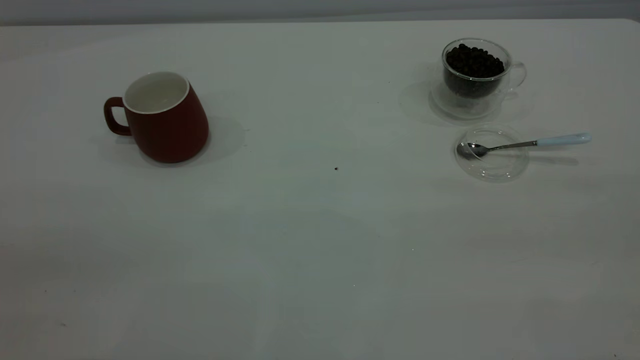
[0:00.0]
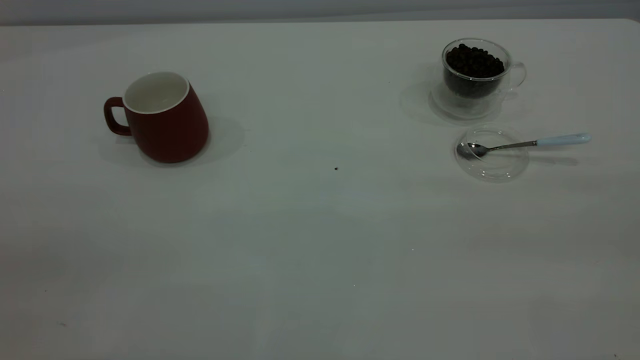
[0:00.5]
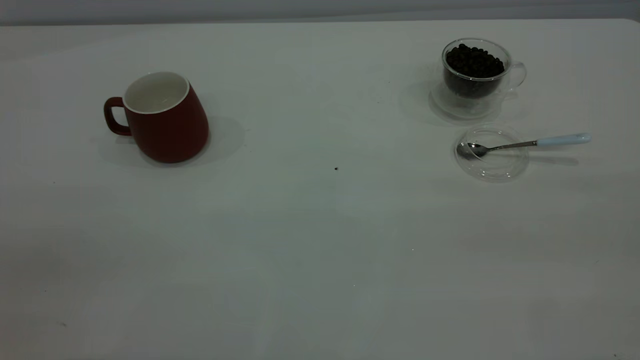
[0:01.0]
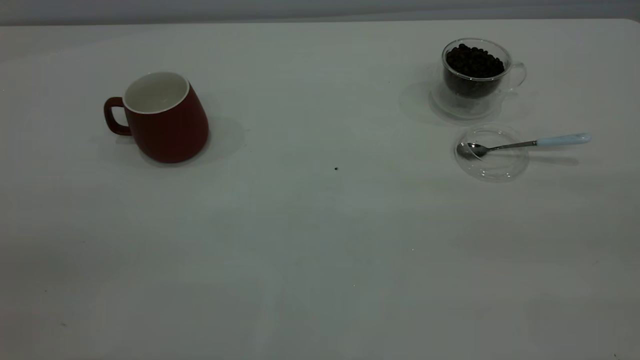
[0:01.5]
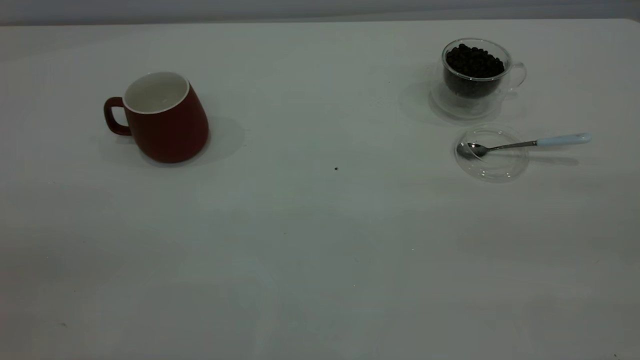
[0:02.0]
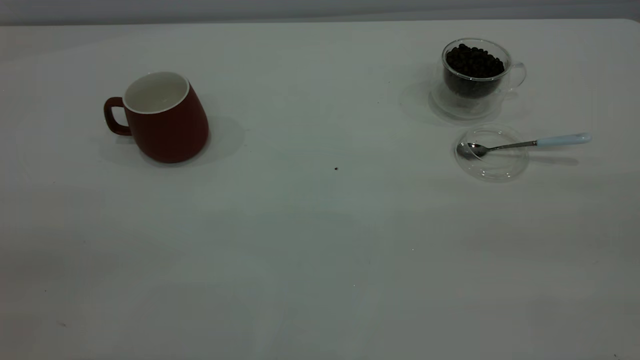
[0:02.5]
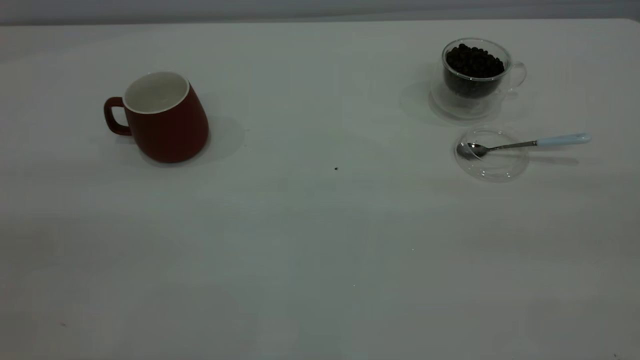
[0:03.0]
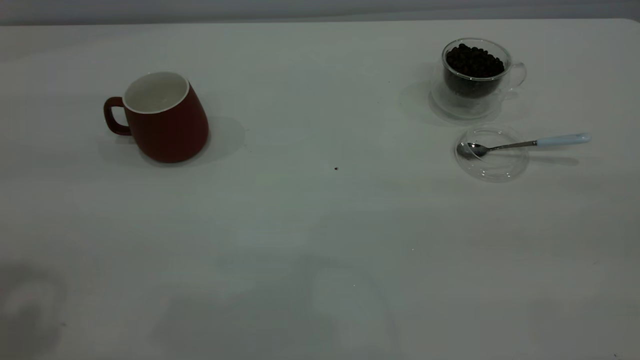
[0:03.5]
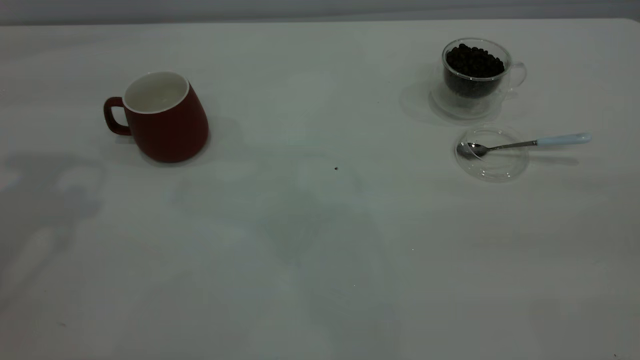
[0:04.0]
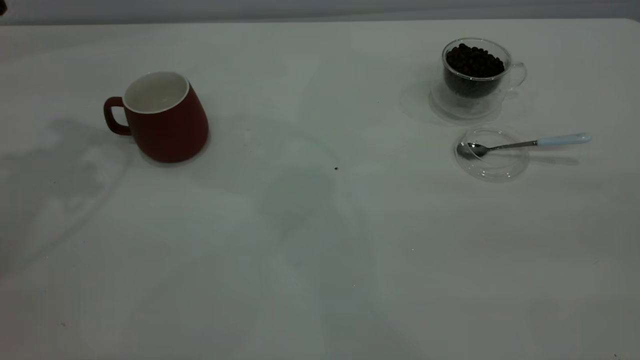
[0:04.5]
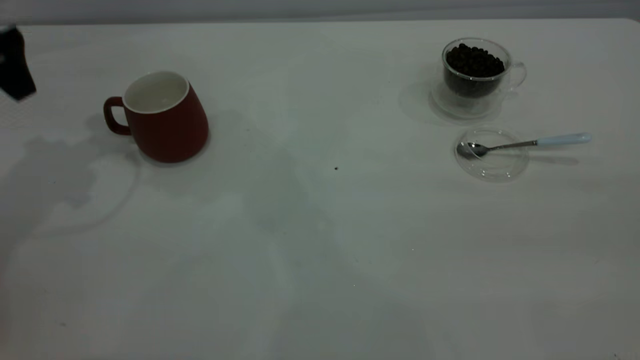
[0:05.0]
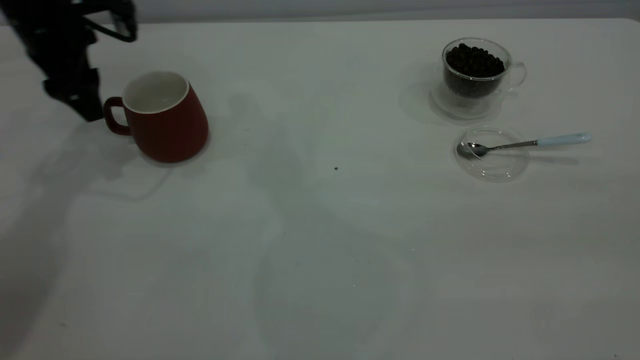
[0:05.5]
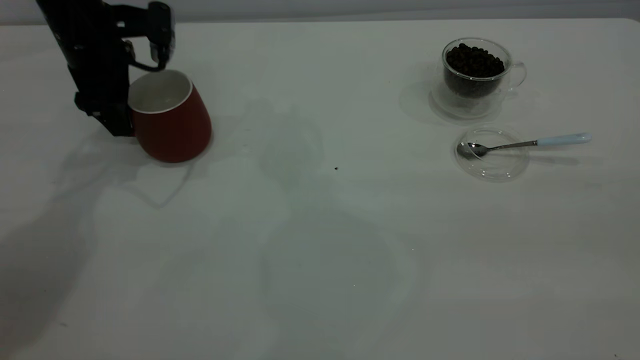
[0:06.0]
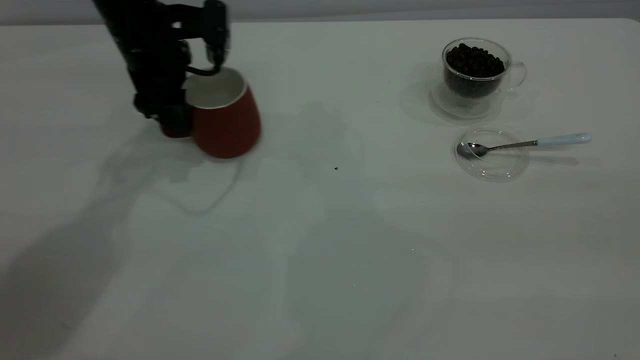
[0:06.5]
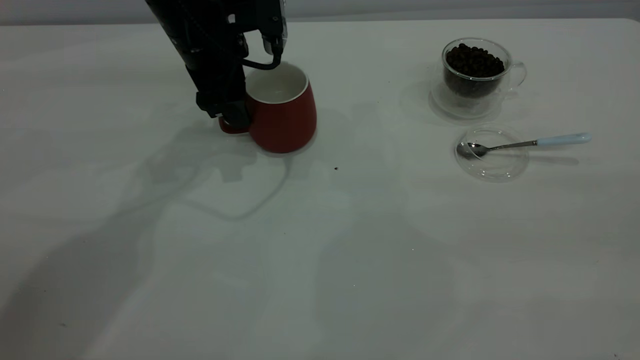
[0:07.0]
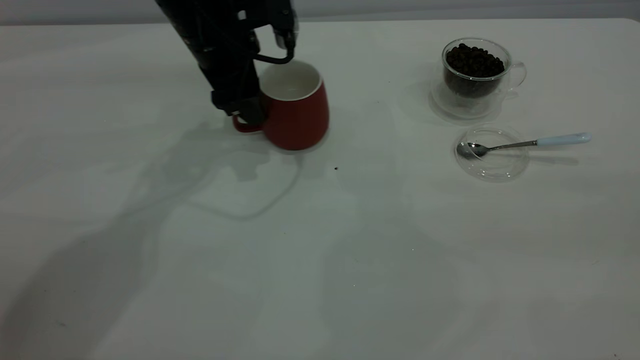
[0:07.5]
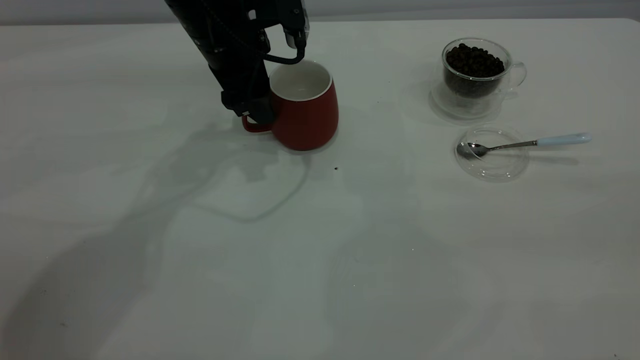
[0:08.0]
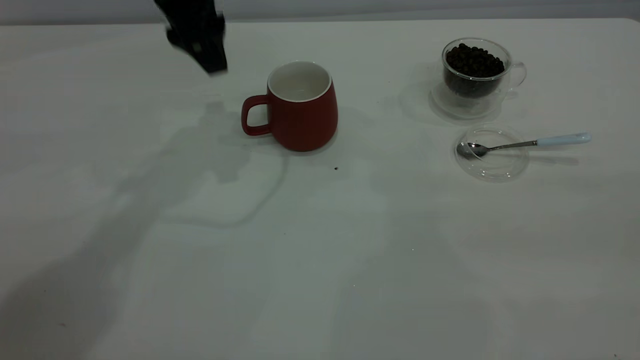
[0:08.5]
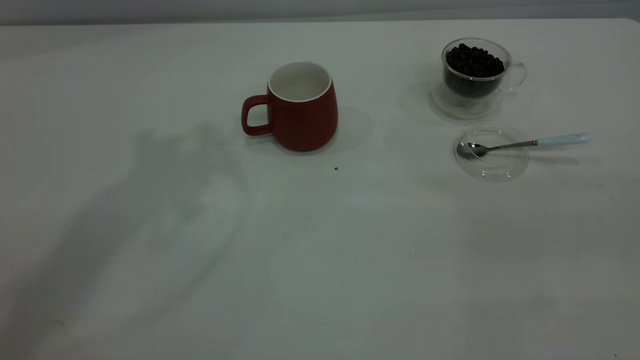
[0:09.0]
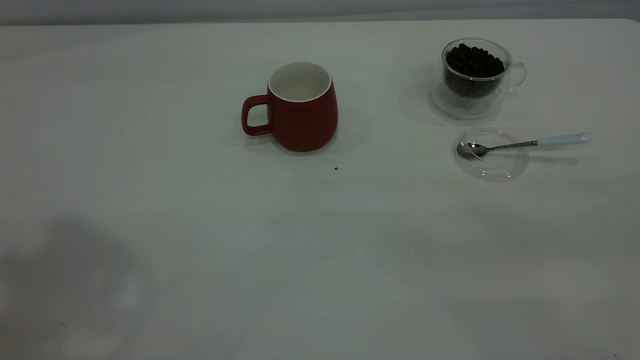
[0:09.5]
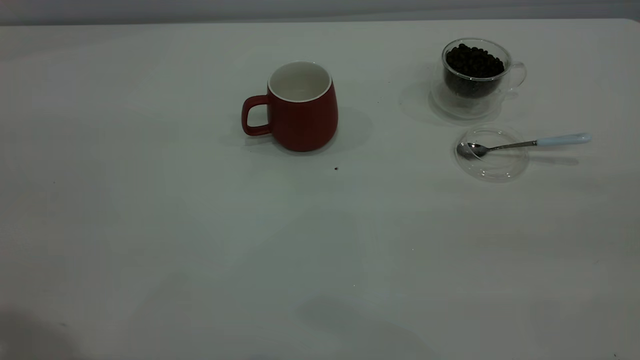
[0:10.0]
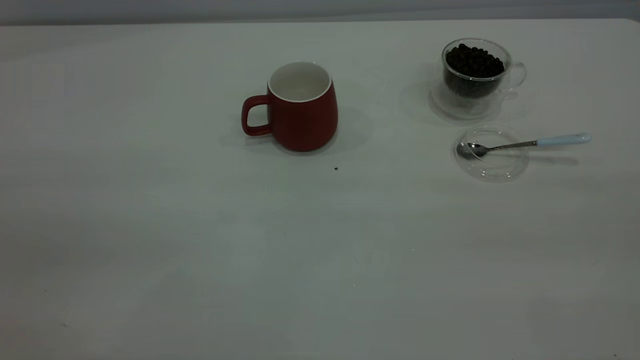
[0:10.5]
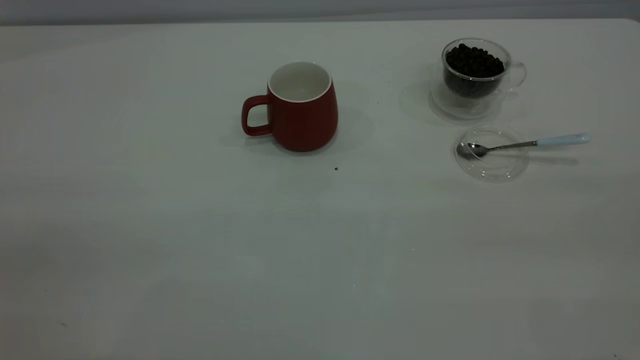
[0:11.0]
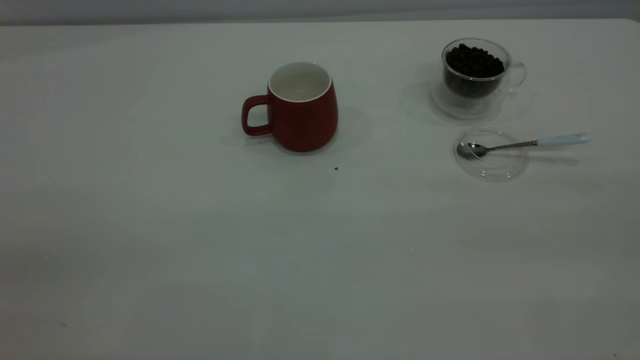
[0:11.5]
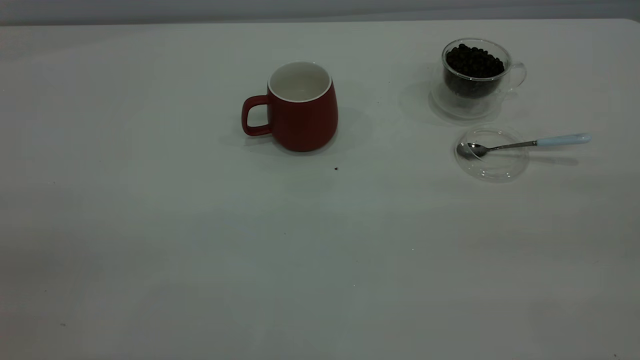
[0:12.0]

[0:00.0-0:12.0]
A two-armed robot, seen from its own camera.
Task of the whole recording: the left gripper place the red cup in the center of the table, the right gripper take the blue spoon from the cup lid and scoop out the coffee beans from the coffee cup and put them into the red cup, the right gripper put the spoon back into the cup lid.
Step, 0:00.0 to 0:08.0: Move the cup to the center of view.
0:00.0 to 0:02.0: The two grippers keep their place.
0:04.0 to 0:06.0: The left gripper is displaced downward and forward by about 25 cm.
0:06.0 to 0:08.0: The left gripper moves to the right, roughly 15 cm.
0:08.0 to 0:10.0: The left gripper goes approximately 40 cm backward, upward and to the left.

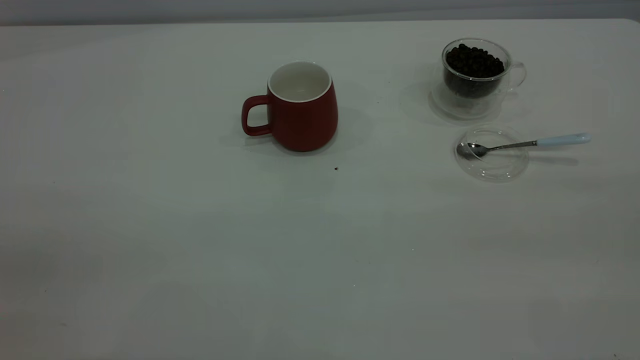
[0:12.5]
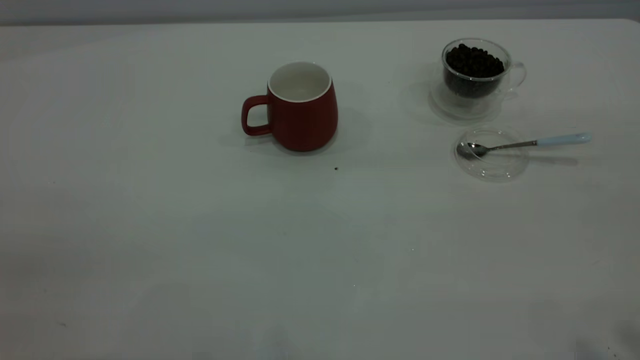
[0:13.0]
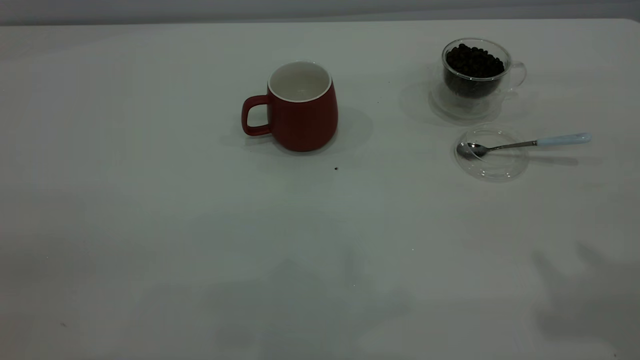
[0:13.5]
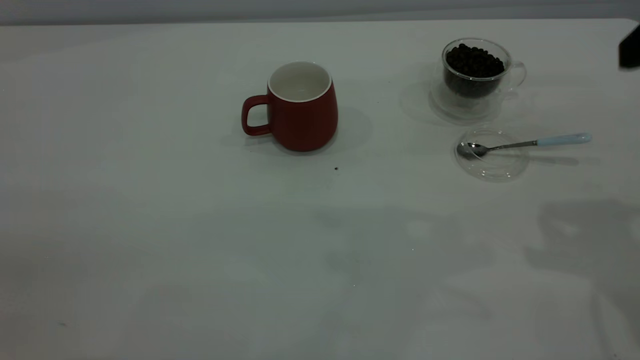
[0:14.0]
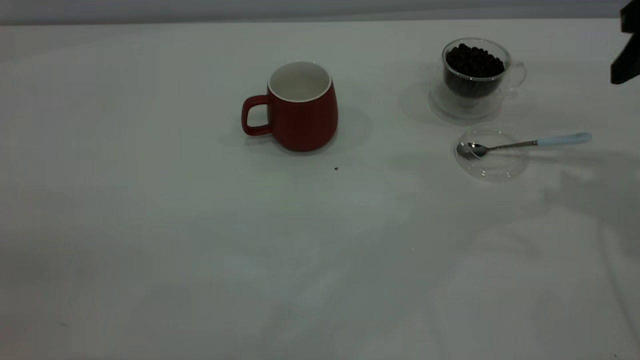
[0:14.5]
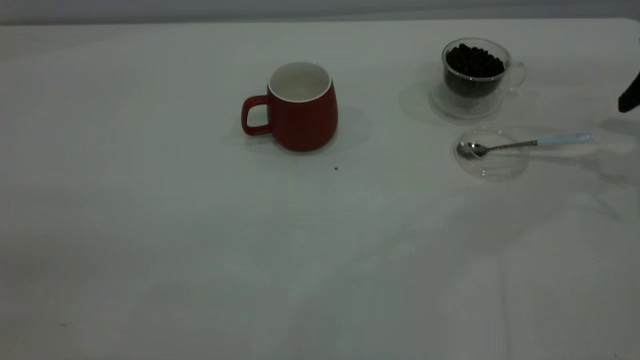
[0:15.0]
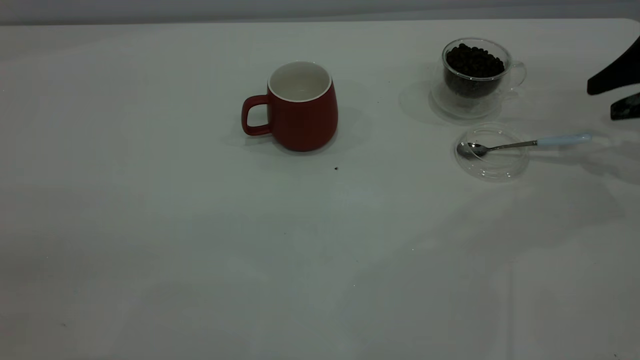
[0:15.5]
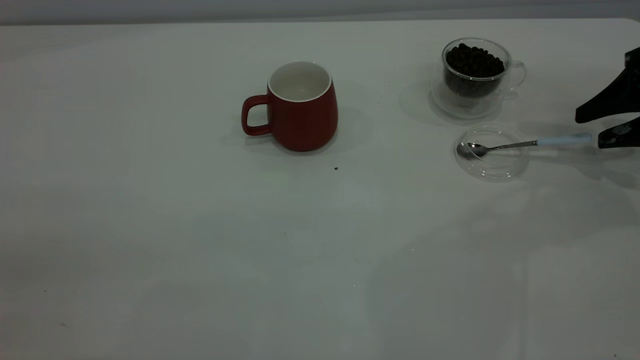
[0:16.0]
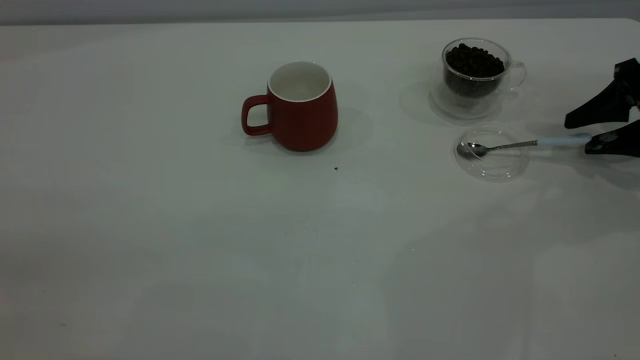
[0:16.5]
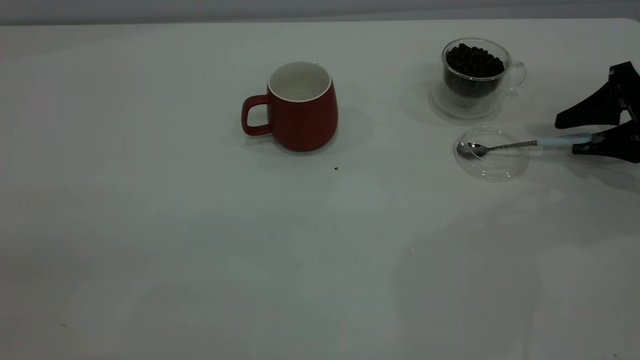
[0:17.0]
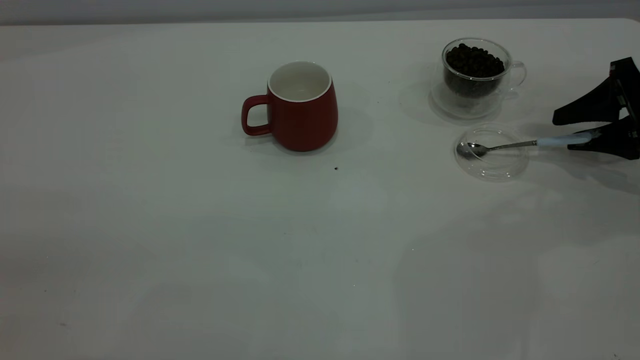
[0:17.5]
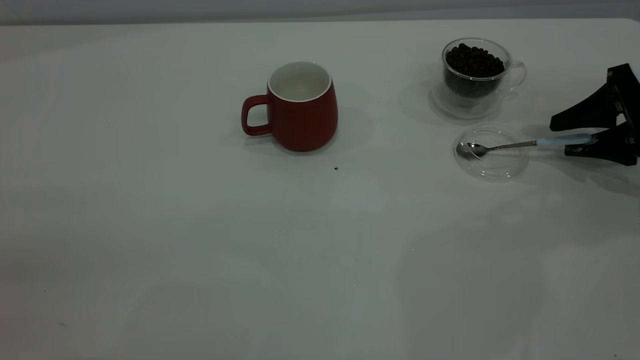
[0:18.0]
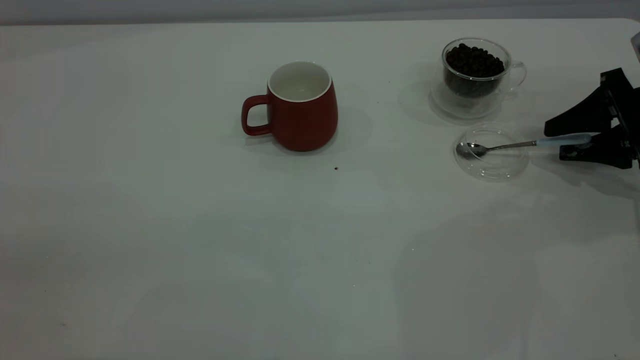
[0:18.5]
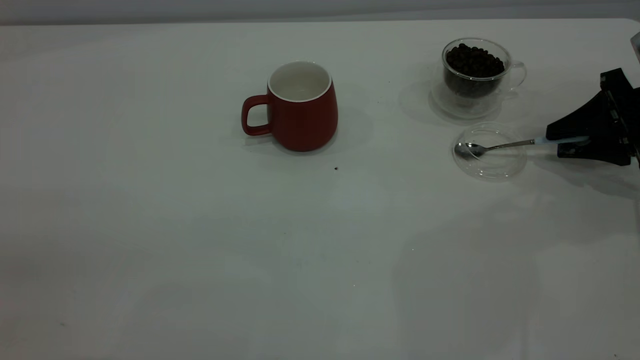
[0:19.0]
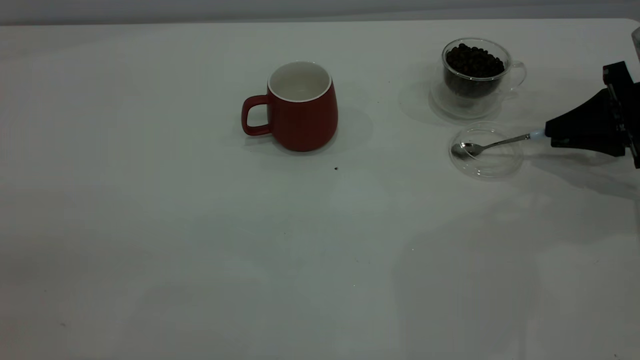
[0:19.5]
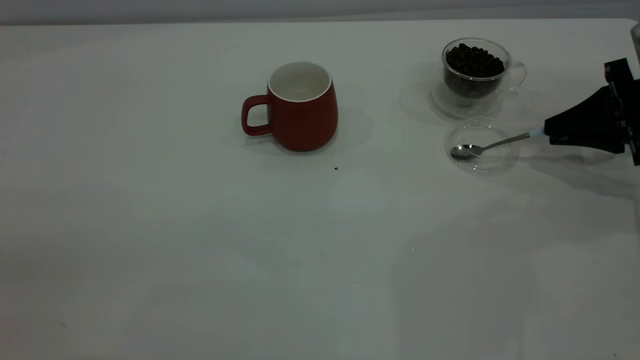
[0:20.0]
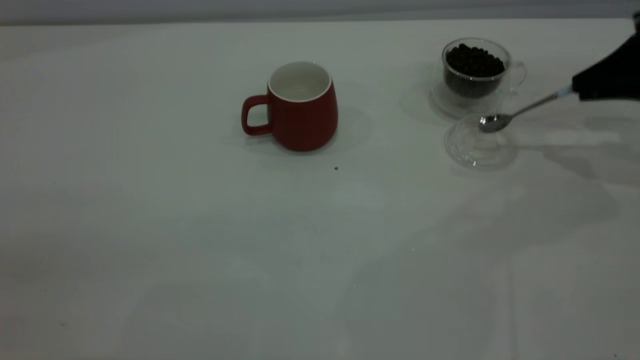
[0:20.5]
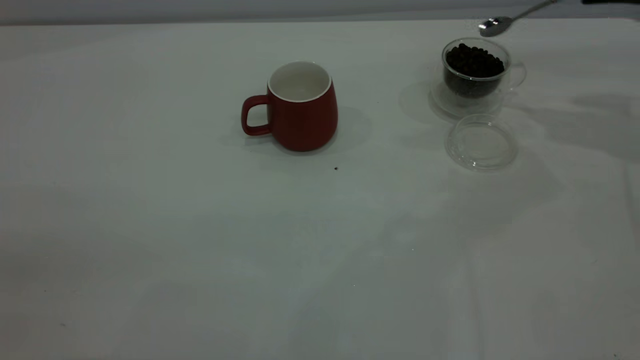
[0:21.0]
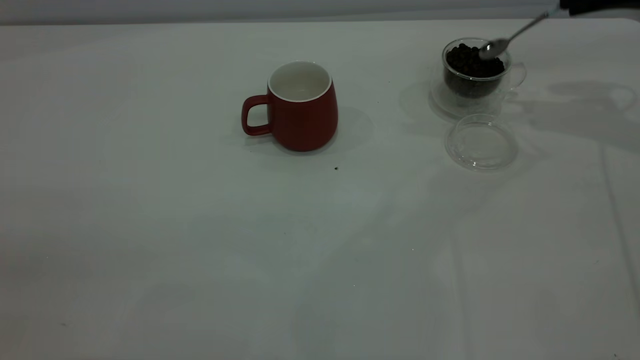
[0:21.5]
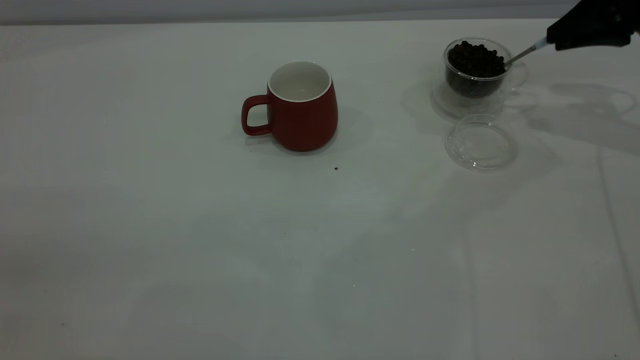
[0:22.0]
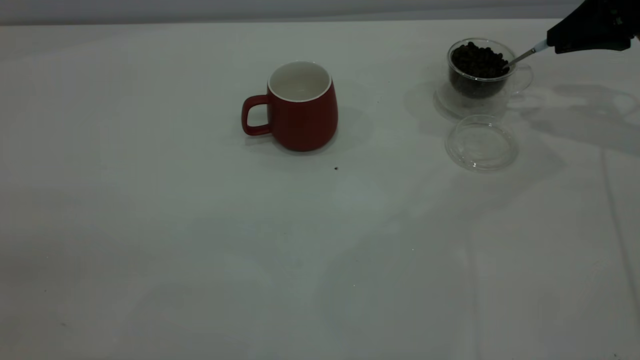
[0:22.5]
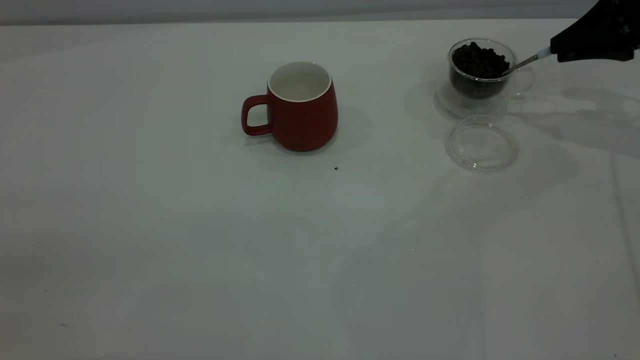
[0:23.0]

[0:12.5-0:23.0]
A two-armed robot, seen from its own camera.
Task of the whole recording: the left gripper place the red cup in the center of the table, the right gripper take the blue spoon from the cup lid and scoop out the coffee beans from the coffee cup and put them into the red cup, the right gripper put the spoon back into the cup lid.
Step, 0:12.5 to 0:20.5: Pick up the spoon.
0:12.5 to 0:14.5: The right gripper is displaced forward and downward by some 35 cm.
0:14.5 to 0:16.5: The right gripper moves downward and to the right, some 15 cm.
0:16.5 to 0:19.0: The right gripper closes.
0:19.0 to 0:21.0: The right gripper is displaced upward by some 15 cm, and closes up.
0:21.0 to 0:23.0: The right gripper heads downward, covering roughly 5 cm.
